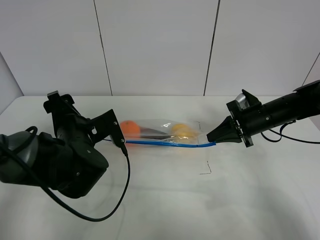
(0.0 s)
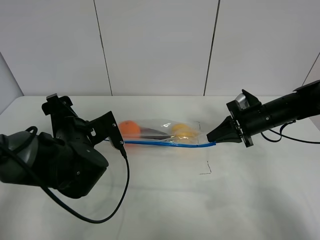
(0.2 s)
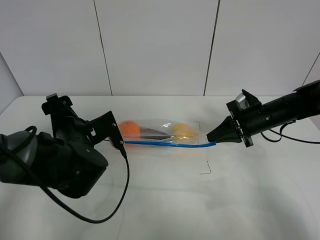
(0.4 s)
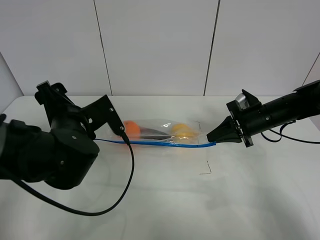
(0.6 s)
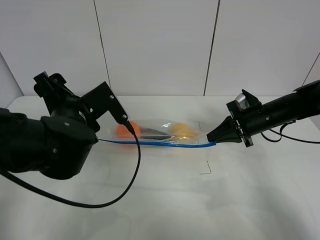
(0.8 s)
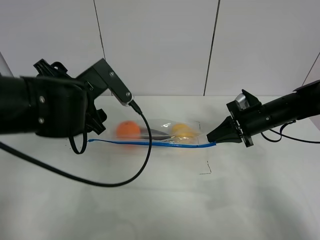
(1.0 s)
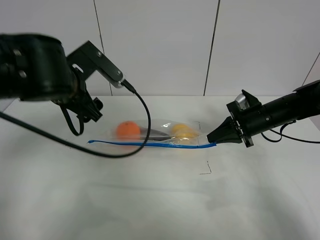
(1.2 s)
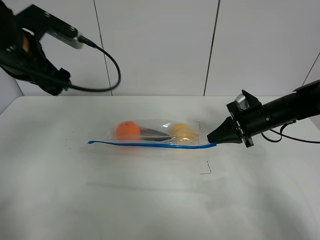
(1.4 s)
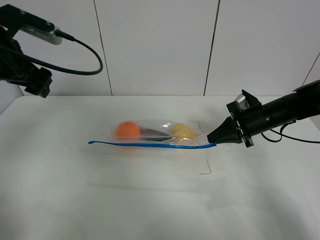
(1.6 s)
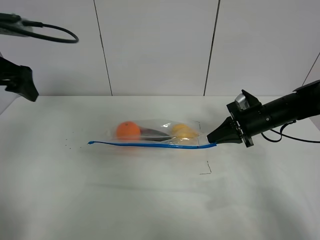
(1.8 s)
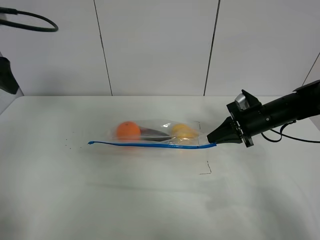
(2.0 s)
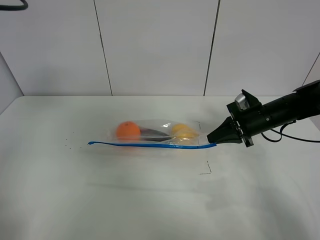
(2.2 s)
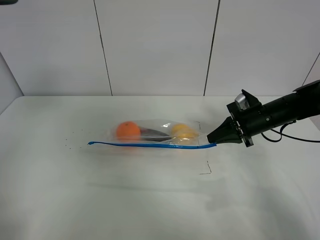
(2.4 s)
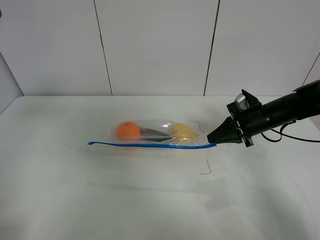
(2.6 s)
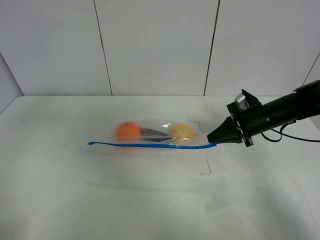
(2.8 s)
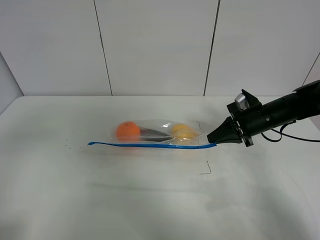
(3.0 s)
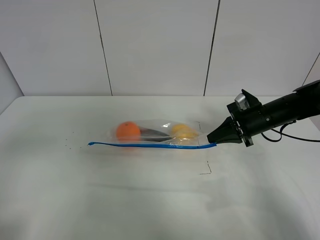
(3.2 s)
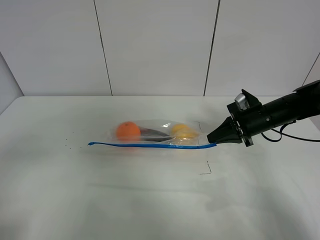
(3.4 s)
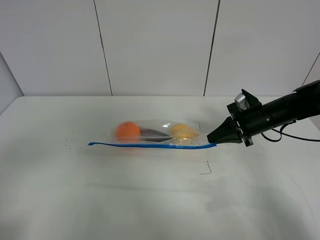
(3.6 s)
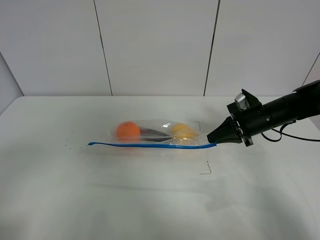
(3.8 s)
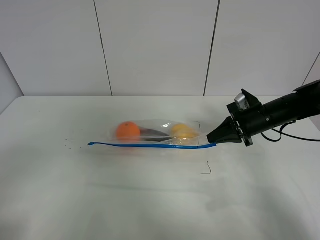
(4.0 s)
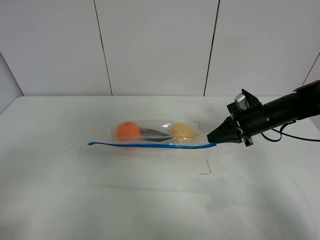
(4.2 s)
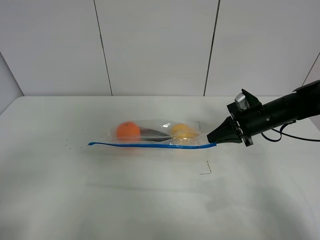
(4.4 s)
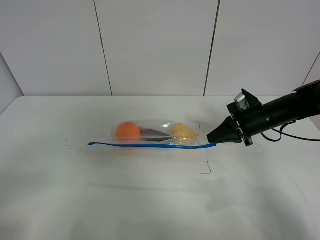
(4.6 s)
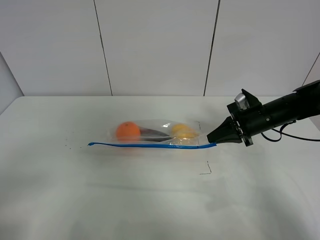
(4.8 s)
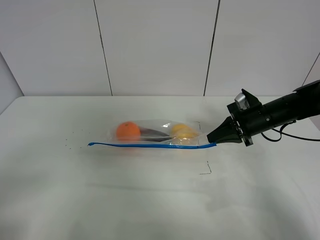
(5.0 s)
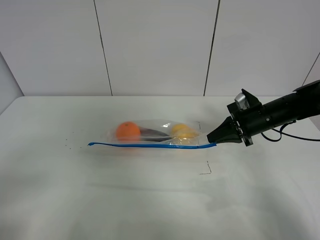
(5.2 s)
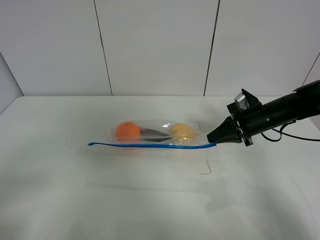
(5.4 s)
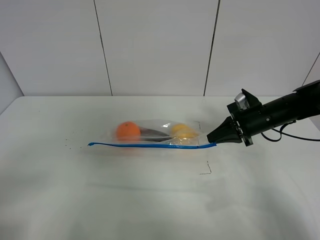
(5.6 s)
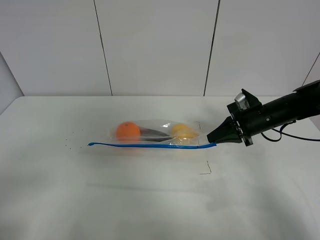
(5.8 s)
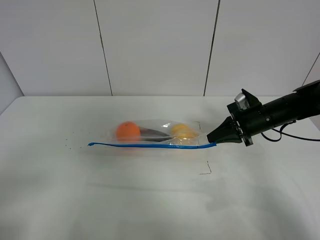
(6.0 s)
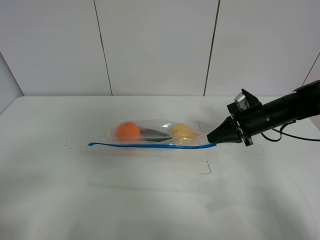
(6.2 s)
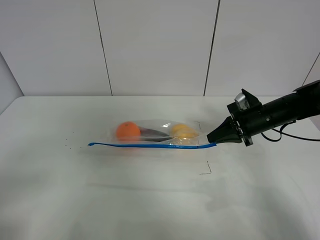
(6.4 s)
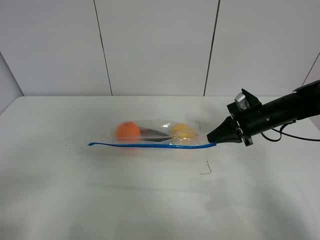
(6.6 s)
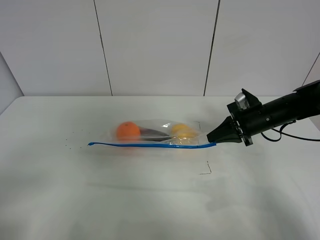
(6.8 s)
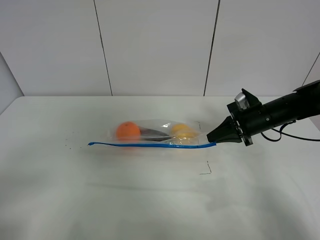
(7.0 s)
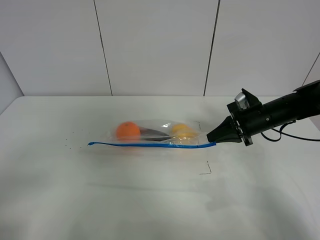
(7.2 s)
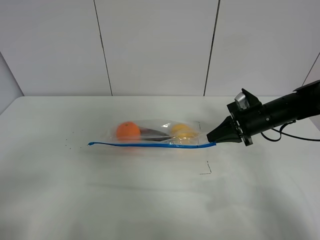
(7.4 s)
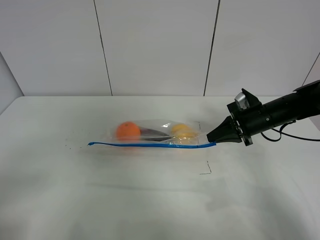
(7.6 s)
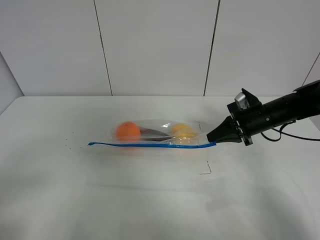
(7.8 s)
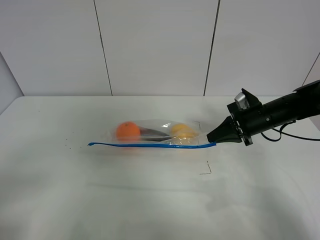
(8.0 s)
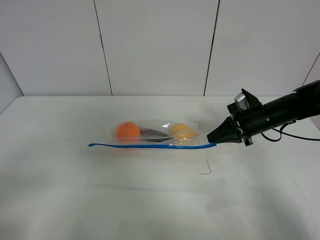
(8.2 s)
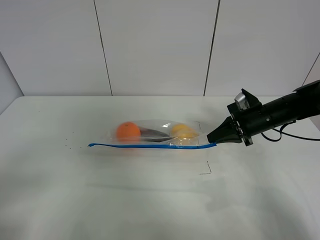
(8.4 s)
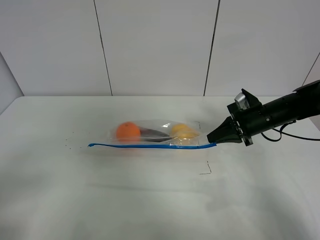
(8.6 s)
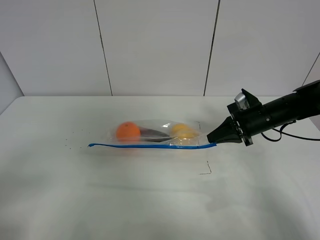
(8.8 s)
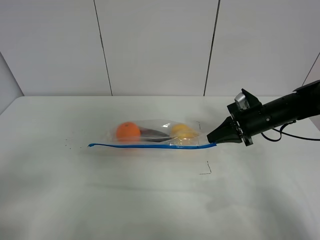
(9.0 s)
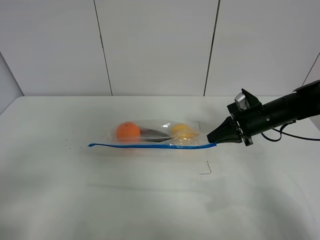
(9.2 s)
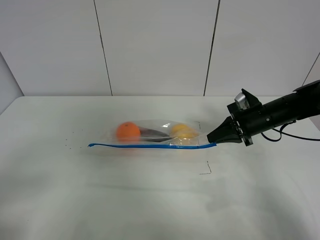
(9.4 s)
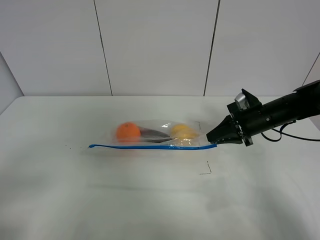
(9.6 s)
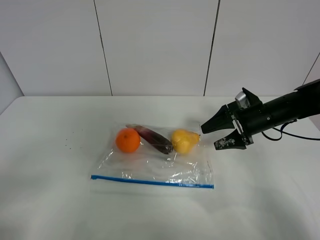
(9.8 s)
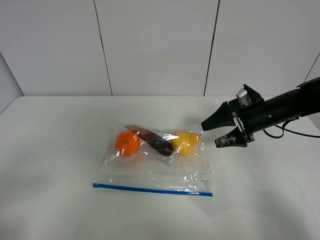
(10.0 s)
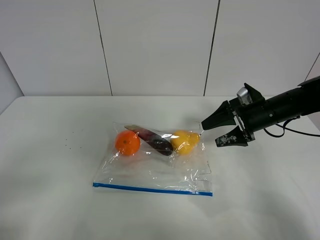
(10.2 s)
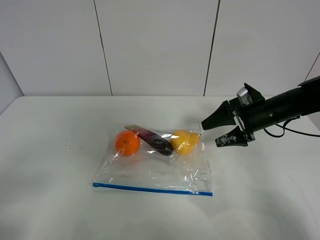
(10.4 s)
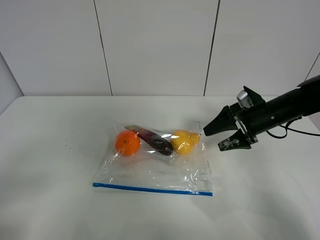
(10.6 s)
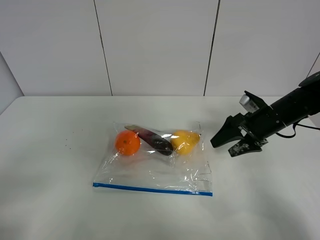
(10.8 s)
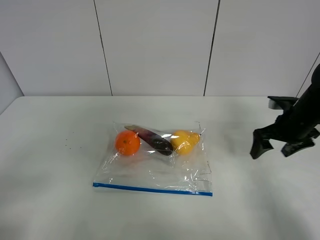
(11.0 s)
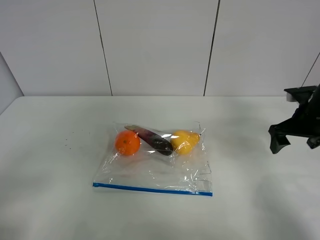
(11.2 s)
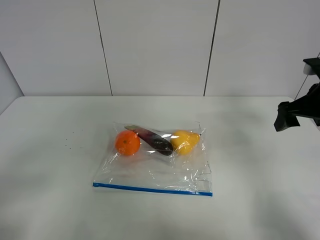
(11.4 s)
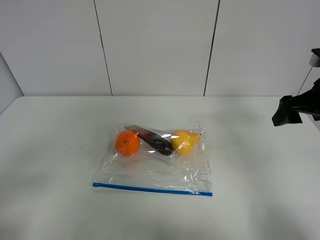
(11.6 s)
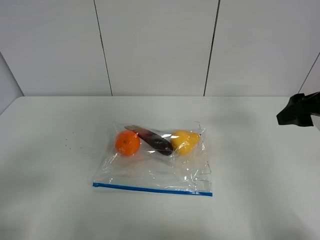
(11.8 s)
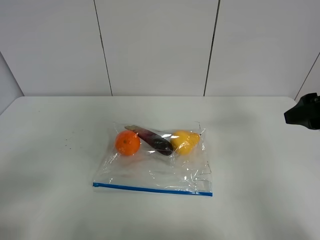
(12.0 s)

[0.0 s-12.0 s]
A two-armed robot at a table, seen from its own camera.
0.0 to 1.6 s: The left gripper shifts roughly 20 cm upward and to the left.
1.6 to 3.0 s: The left gripper goes about 20 cm backward.
6.0 to 7.6 s: Neither gripper changes place.
9.0 to 10.4 s: The right gripper opens up.
10.4 to 12.0 s: The right gripper is displaced backward and upward by some 20 cm.

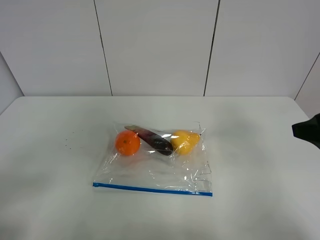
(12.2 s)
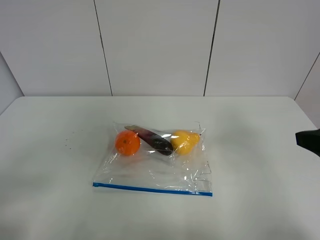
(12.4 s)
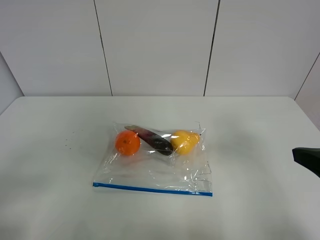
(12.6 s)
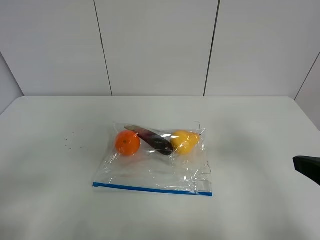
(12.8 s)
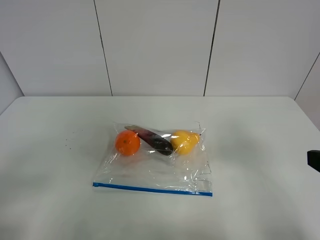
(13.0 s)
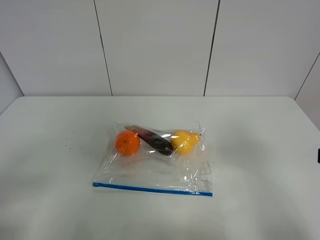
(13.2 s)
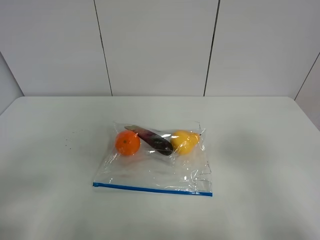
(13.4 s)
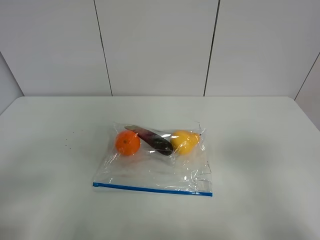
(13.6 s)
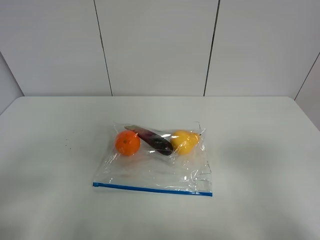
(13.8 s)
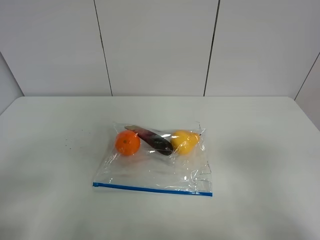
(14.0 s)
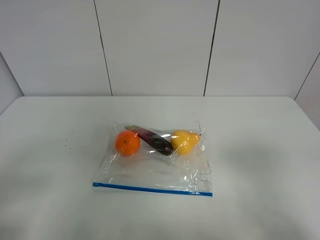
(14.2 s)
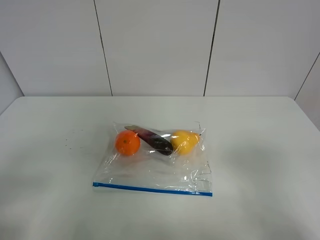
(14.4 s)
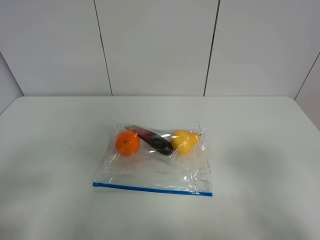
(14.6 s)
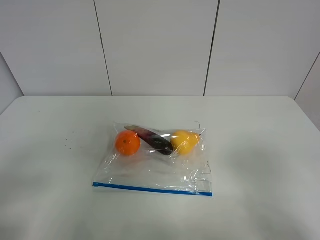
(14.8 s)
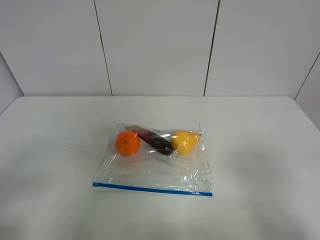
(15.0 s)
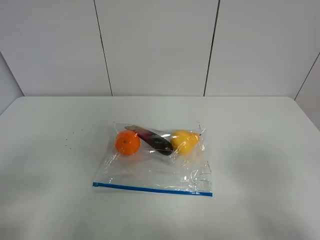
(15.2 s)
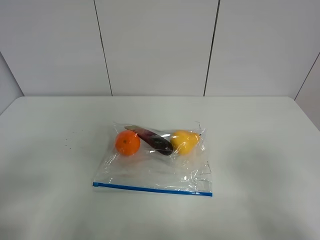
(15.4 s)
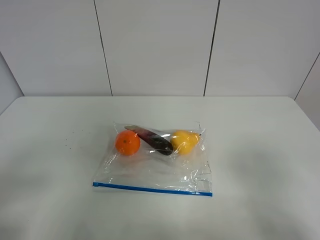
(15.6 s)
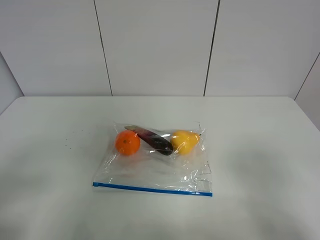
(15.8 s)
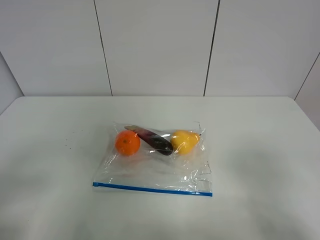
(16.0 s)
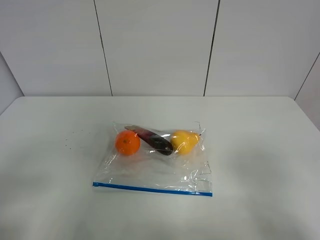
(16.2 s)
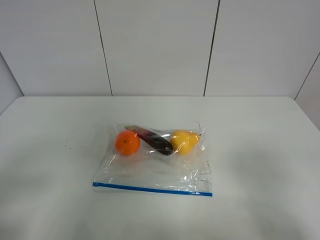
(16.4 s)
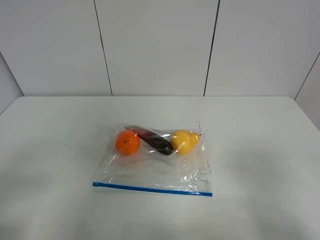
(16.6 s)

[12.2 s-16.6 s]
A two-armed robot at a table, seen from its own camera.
12.2 to 13.6 s: The right gripper heads backward, covering roughly 15 cm.
15.2 to 16.6 s: Both grippers stay put.

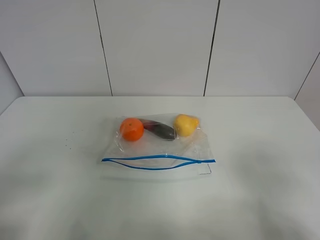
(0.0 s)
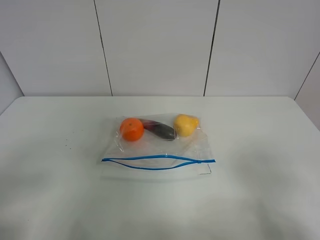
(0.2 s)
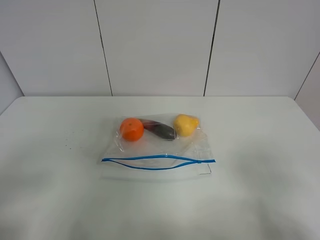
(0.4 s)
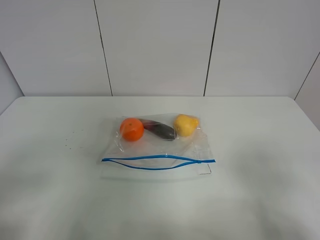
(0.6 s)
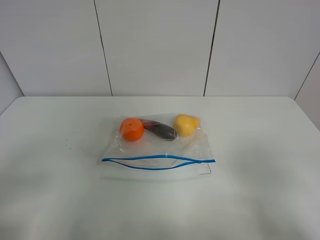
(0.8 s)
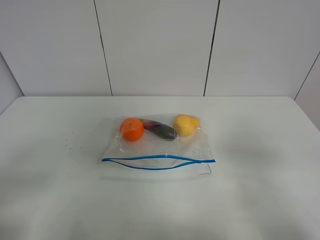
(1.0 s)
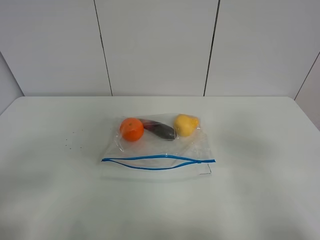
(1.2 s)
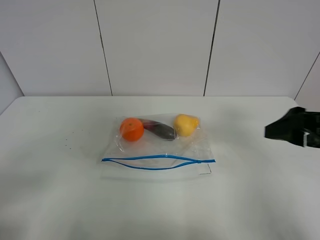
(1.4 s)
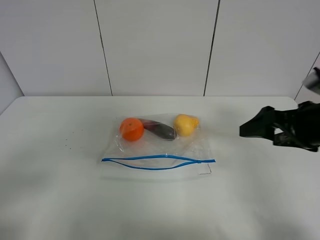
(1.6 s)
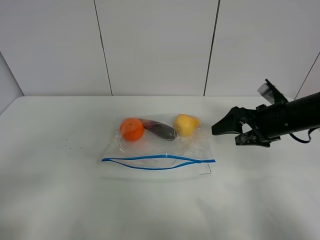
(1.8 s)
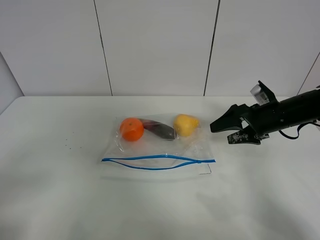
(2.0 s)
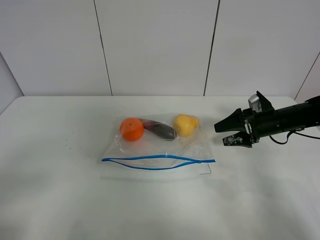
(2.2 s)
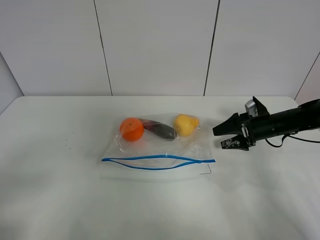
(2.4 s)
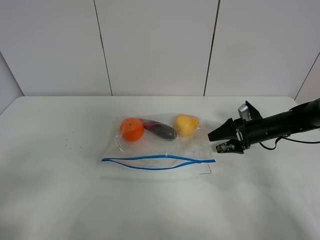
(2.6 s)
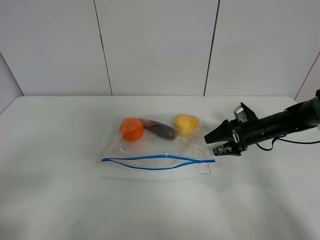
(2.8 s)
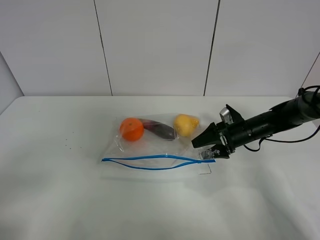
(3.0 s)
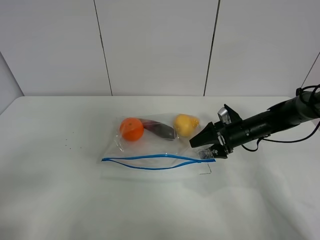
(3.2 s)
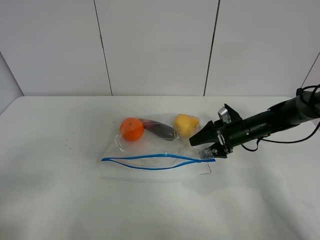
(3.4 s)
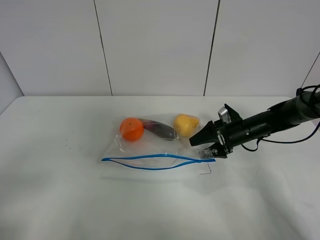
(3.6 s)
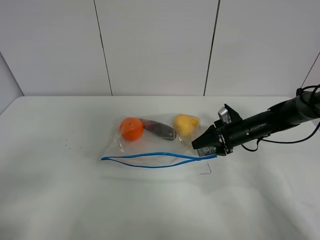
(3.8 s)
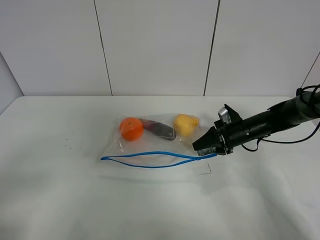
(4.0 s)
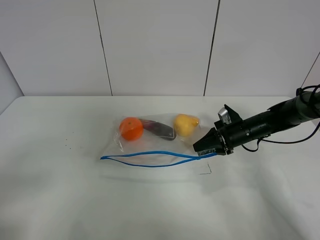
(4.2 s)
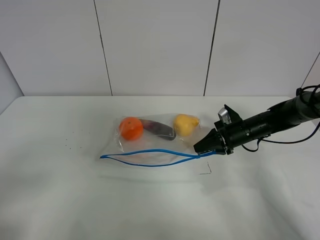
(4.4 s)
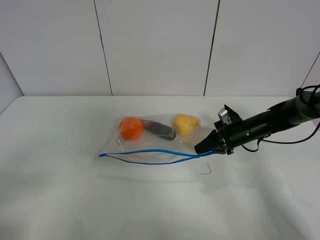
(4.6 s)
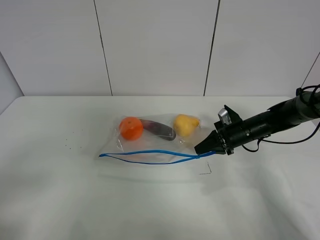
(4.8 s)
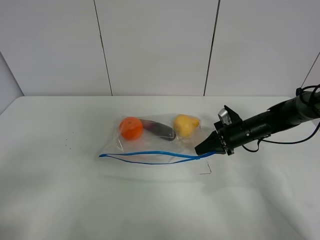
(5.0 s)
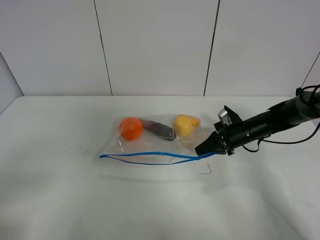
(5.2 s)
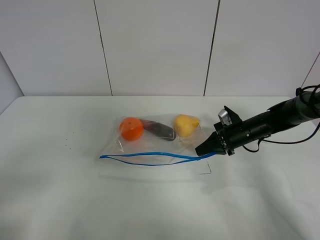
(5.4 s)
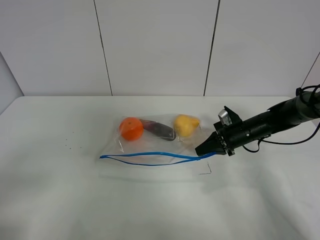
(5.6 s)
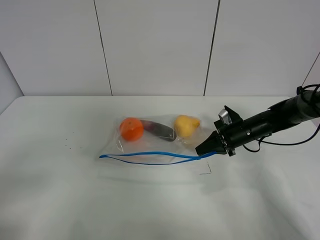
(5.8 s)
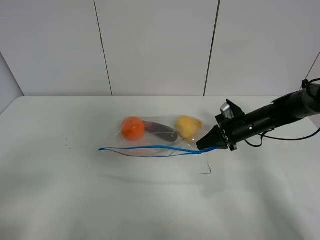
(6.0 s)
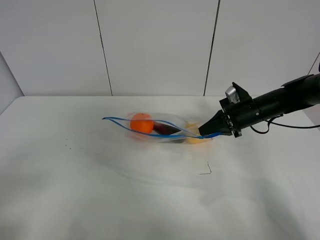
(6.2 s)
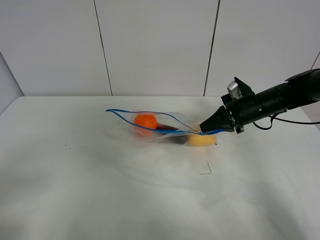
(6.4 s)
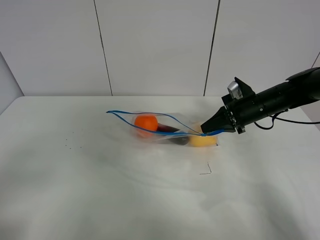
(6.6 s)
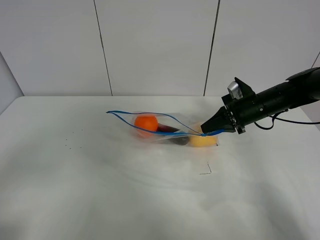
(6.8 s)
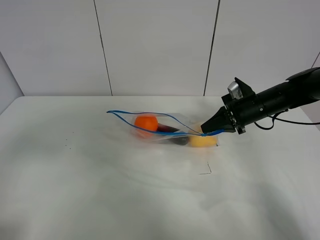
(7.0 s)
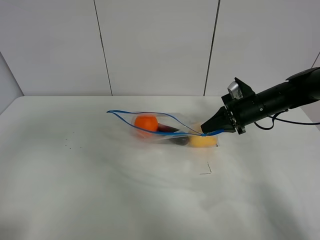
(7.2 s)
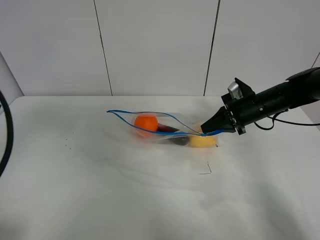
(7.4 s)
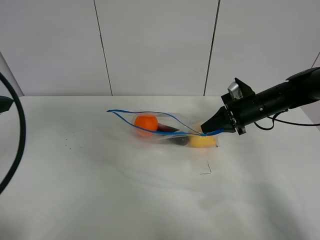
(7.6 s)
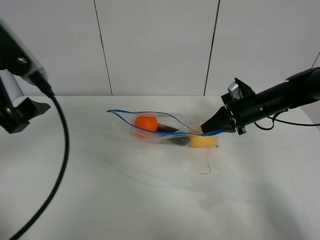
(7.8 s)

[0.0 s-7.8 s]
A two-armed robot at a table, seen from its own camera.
Step, 0.0 to 4.8 s: Grasp the fruit bag with right gripper.
Step, 5.0 to 6.6 s: Lift the fruit bag with your right gripper.
0.0 to 1.6 s: The right gripper heads forward, covering approximately 25 cm.
1.6 to 3.2 s: The right gripper is displaced downward and forward by some 20 cm.
3.2 to 4.6 s: The right gripper closes up.
4.6 to 6.2 s: The right gripper travels upward by some 5 cm.
6.2 to 7.8 s: The left gripper moves forward and to the right, about 20 cm.
